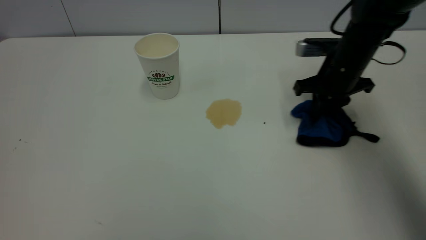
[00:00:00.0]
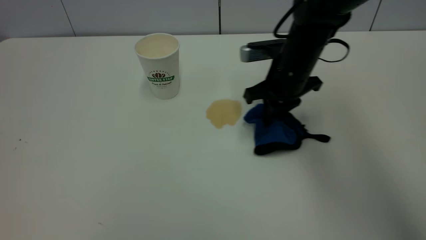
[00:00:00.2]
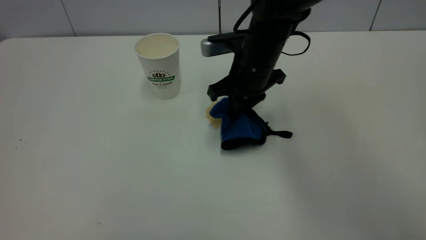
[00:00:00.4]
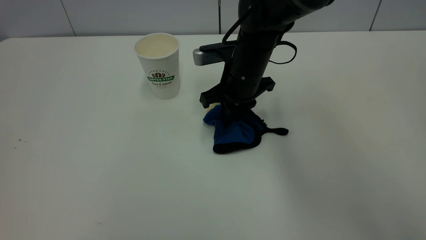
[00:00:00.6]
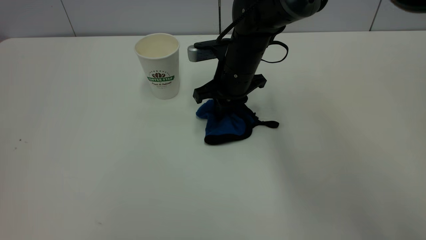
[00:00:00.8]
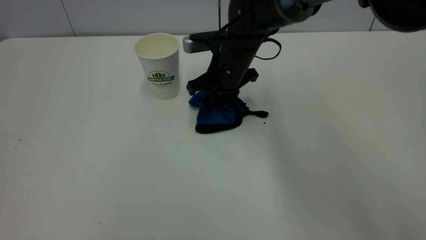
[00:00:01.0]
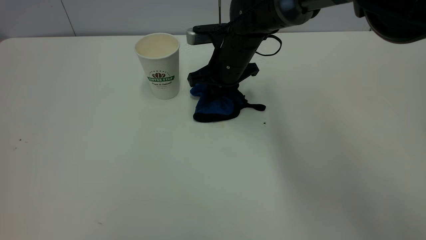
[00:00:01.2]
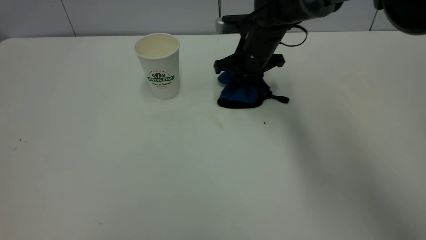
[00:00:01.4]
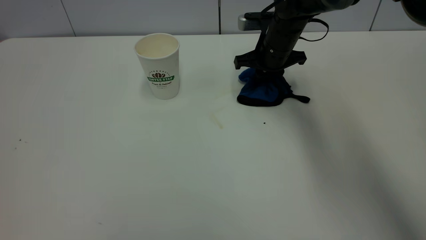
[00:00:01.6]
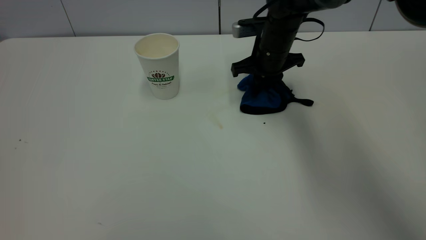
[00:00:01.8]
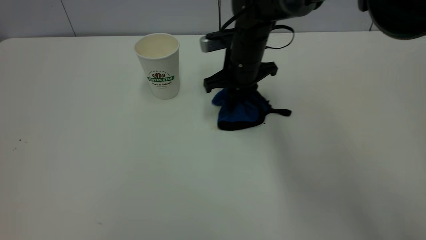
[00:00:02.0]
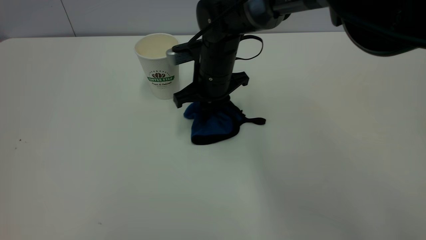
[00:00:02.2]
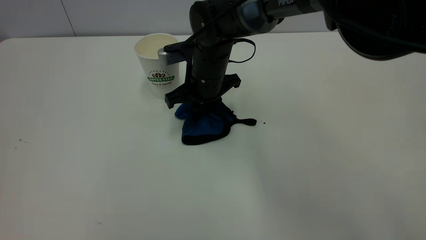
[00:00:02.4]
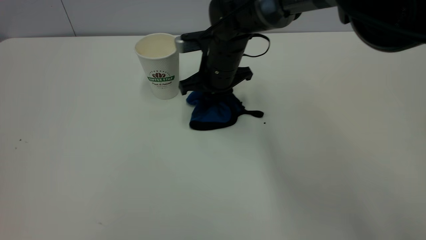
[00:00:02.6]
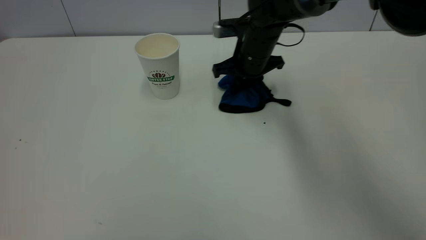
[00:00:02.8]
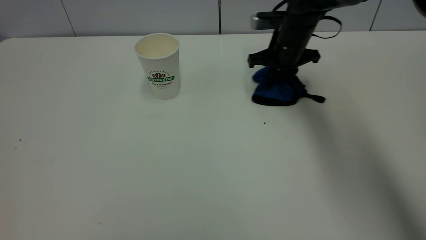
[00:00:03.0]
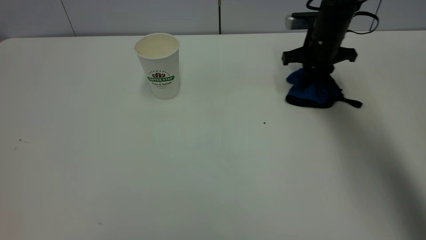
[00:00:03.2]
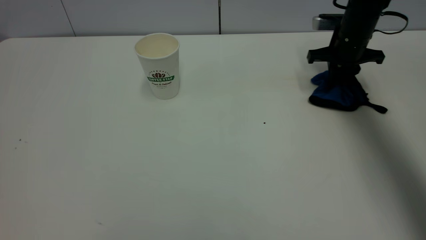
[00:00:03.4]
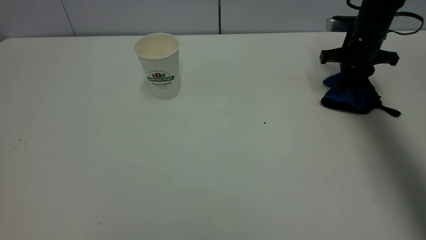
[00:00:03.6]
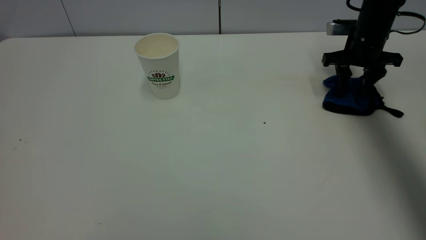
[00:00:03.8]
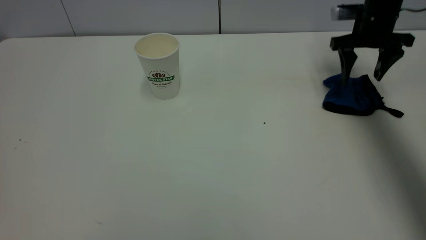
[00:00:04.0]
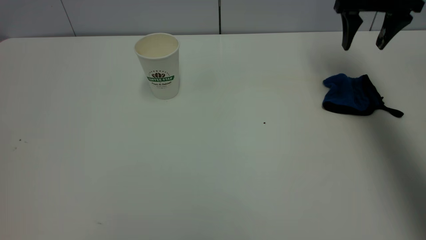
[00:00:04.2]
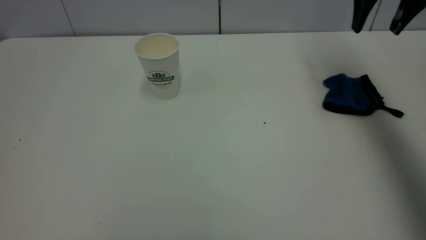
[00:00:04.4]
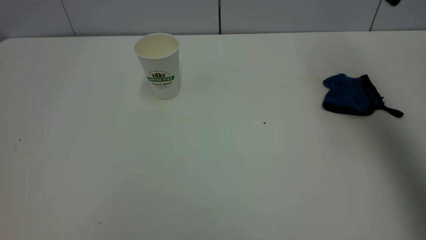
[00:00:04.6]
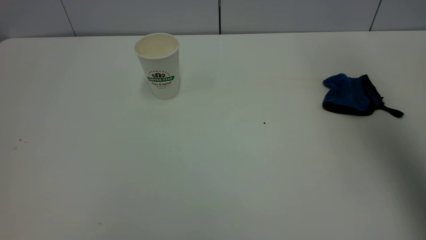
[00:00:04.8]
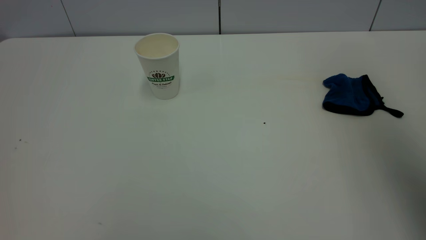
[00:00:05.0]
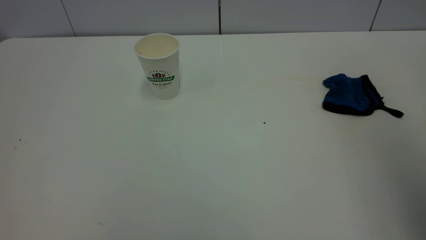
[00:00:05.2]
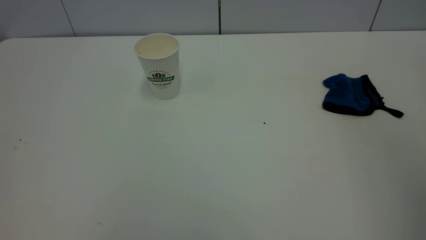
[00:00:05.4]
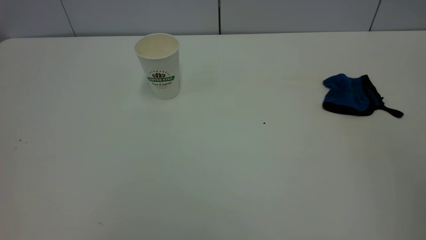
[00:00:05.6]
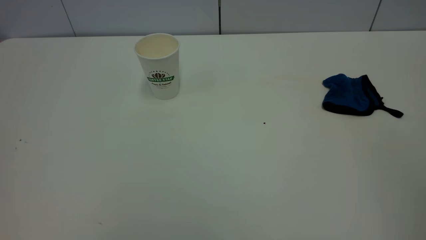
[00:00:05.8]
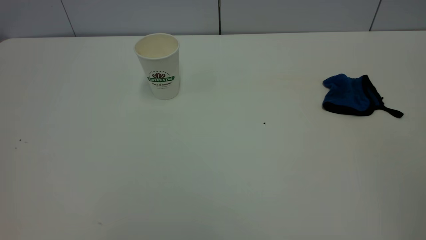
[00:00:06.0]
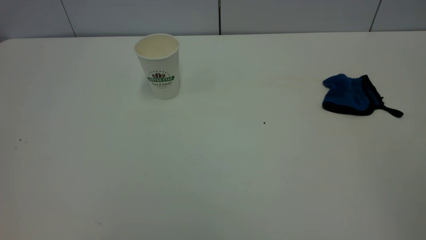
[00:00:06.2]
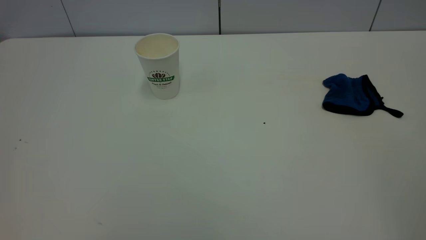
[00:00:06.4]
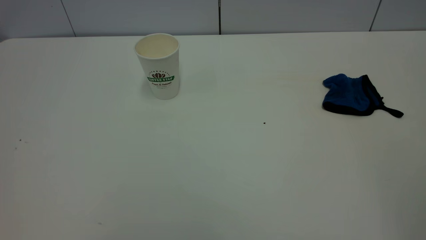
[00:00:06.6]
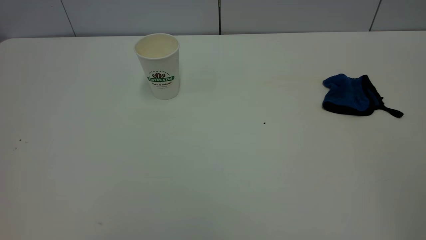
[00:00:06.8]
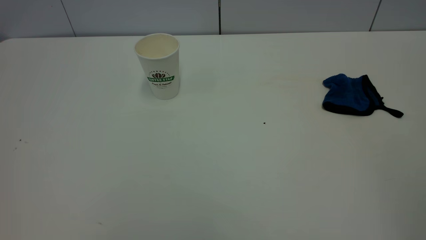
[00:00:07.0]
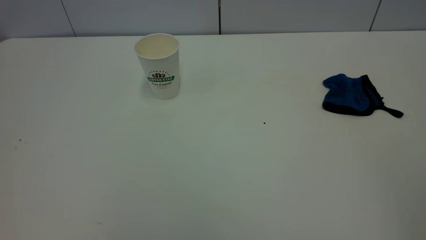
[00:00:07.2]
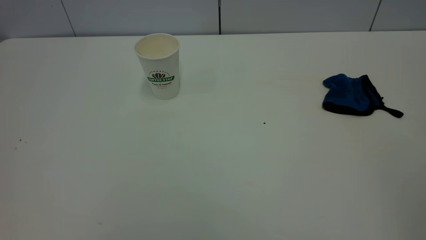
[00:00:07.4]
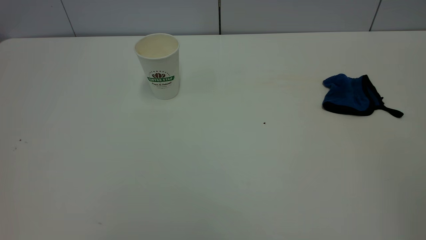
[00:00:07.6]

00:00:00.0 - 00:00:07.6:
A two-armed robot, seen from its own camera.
Task of the whole recording: the left gripper pick up the fallen cup and place it upright, the right gripper grasp the blue rag and wipe the tea stain on the table, the right gripper put the blue rag back in its original position.
Step, 00:00:00.0 - 00:00:04.2: Wipe the stains off the table with a rag.
00:00:00.0 - 00:00:01.6: The right gripper shifts approximately 10 cm forward and to the left.
00:00:01.6 - 00:00:03.0: The right gripper travels to the left and back again, some 15 cm each way.
00:00:03.0 - 00:00:04.6: The right gripper goes approximately 30 cm upward and backward, and opens.
00:00:04.6 - 00:00:06.0: The right gripper shifts some 40 cm backward.
